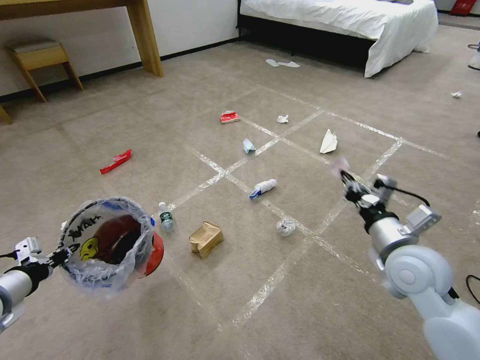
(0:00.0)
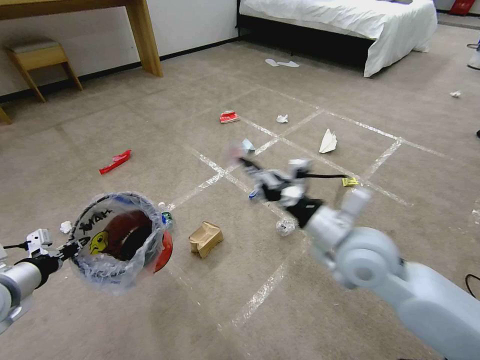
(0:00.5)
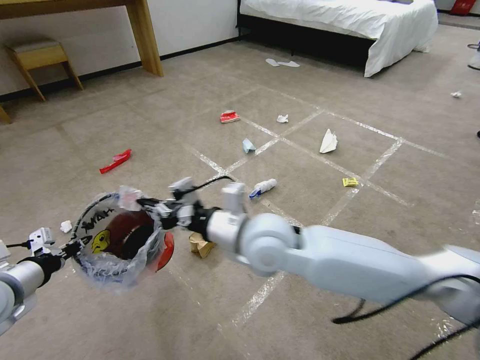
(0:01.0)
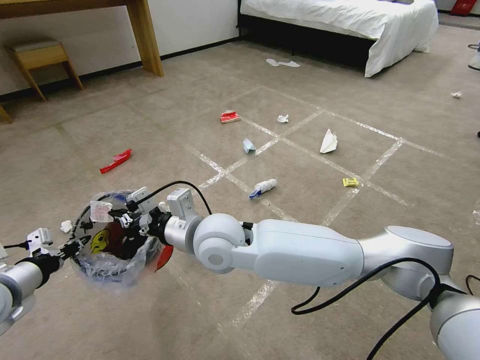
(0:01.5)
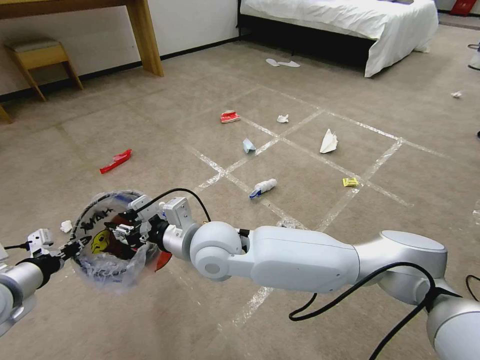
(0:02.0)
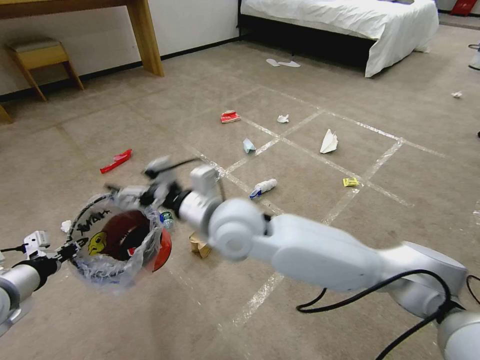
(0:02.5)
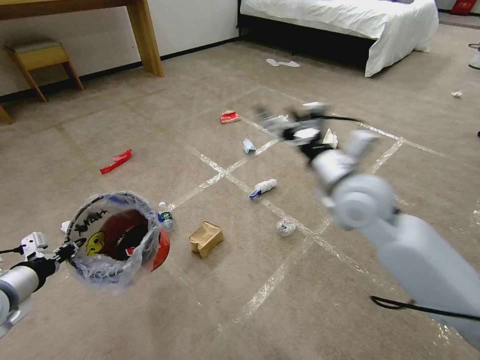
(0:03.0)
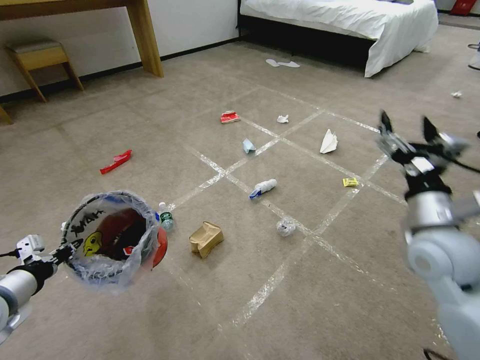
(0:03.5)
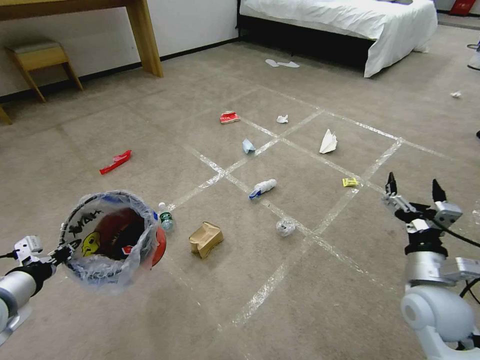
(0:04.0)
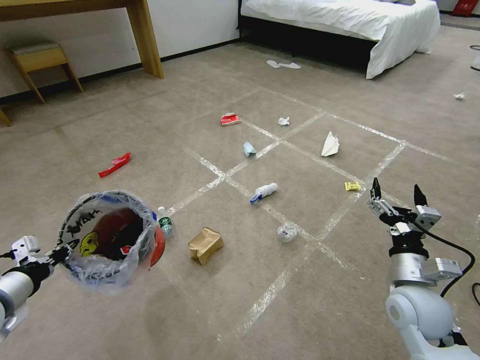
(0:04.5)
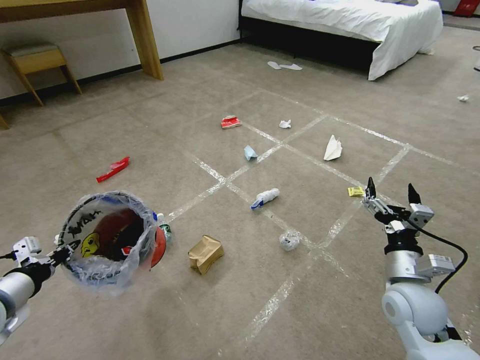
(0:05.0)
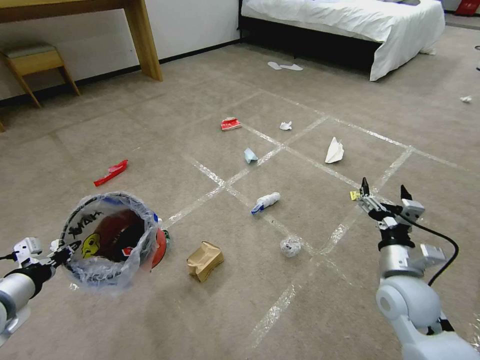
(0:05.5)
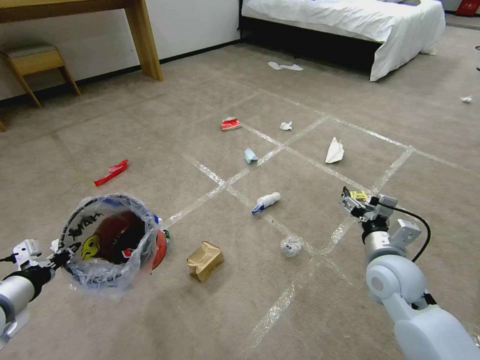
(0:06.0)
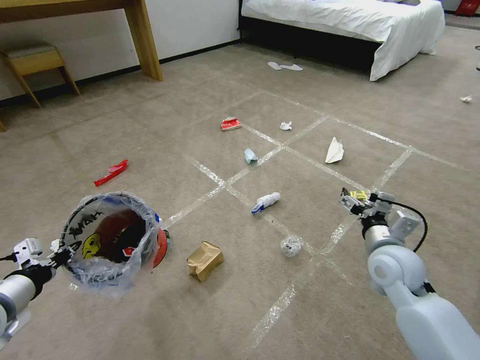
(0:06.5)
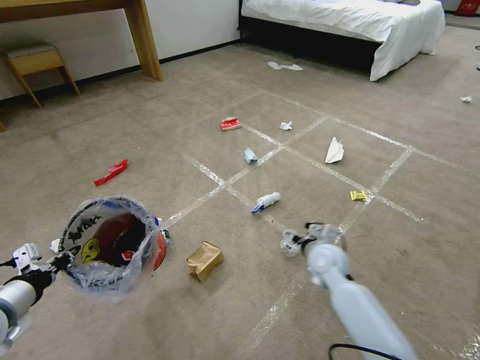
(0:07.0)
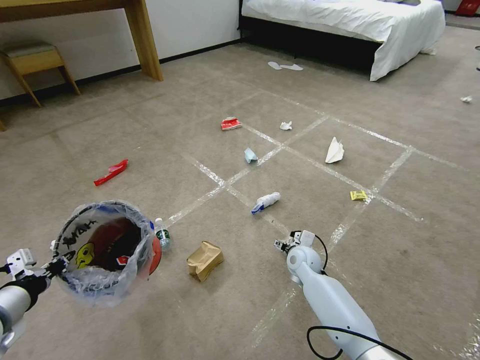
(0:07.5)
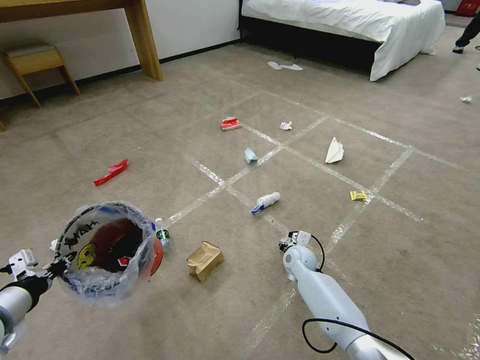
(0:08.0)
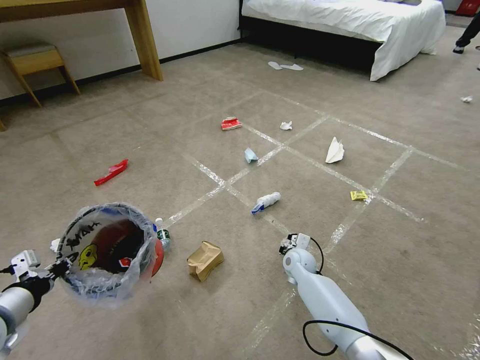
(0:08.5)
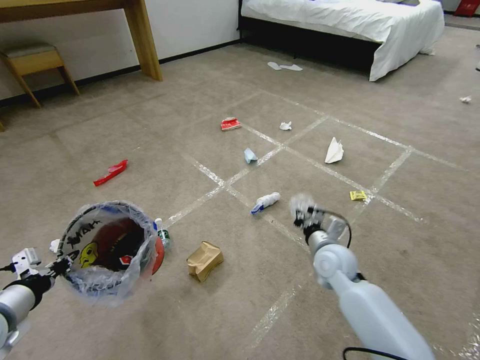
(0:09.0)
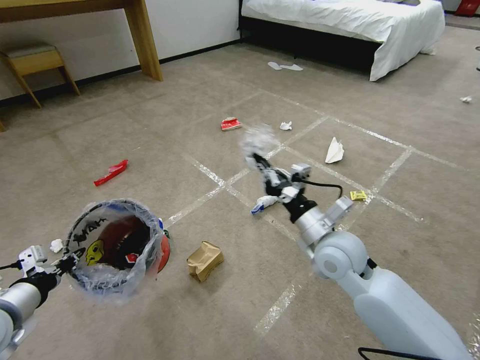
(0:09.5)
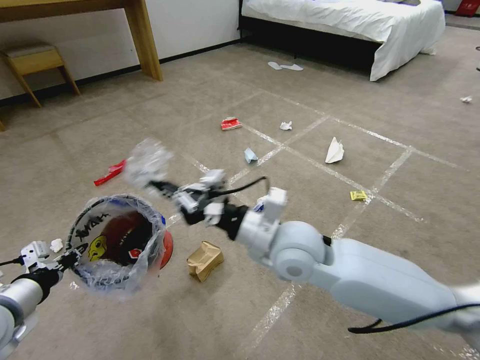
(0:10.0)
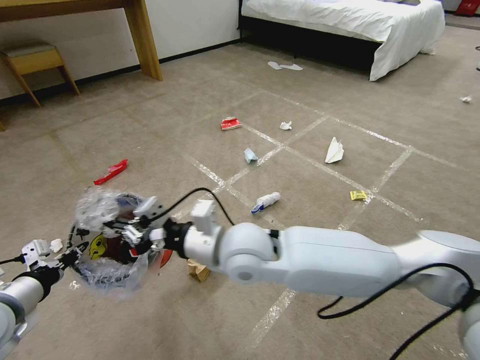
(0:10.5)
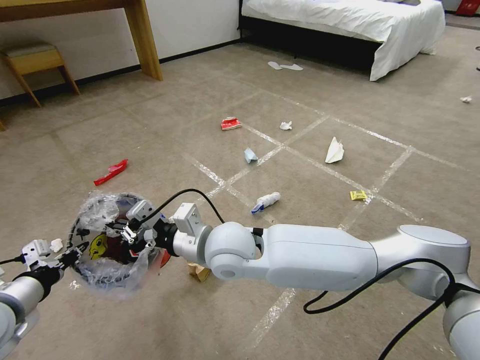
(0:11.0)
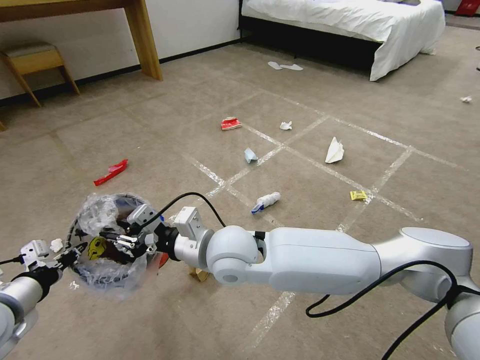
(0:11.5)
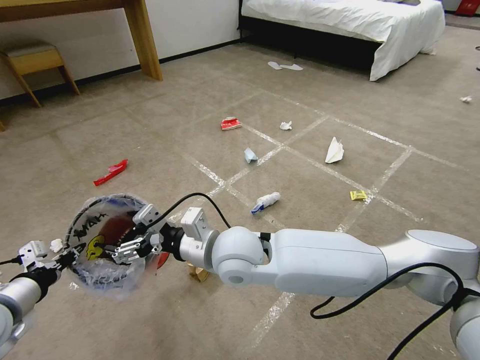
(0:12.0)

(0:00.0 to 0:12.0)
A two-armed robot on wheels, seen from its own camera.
Task of the whole recording: Pick up the trash bin and place the garbage on the floor into it.
0:00.0 - 0:02.0: The right gripper travels to the left by about 35 cm.
0:02.0 - 0:04.0: The right gripper is displaced to the right by about 40 cm, and opens its fingers.
0:04.0 - 0:06.0: The right gripper moves forward, about 5 cm.
0:06.0 - 0:08.0: The right gripper goes roughly 25 cm downward, forward and to the left.
0:08.0 - 0:10.0: The right gripper shifts about 30 cm upward and backward, and closes its fingers.
0:10.0 - 0:12.0: The right gripper is displaced to the left by approximately 10 cm, and opens its fingers.

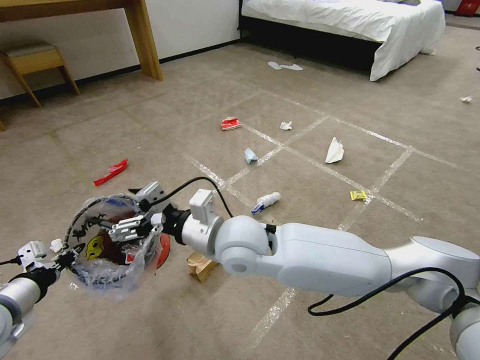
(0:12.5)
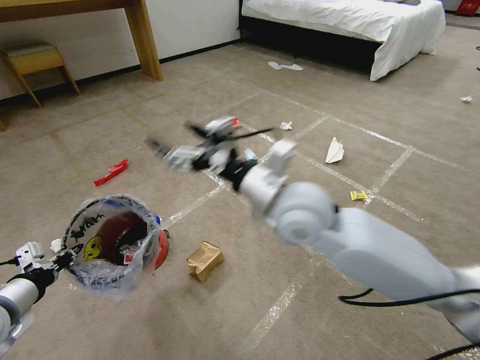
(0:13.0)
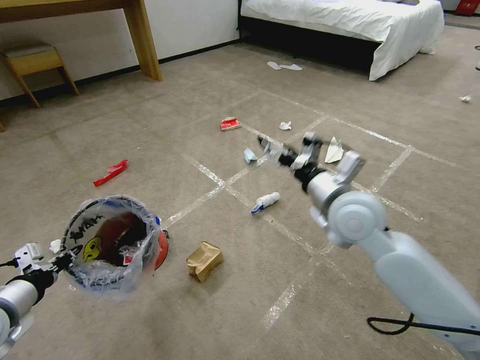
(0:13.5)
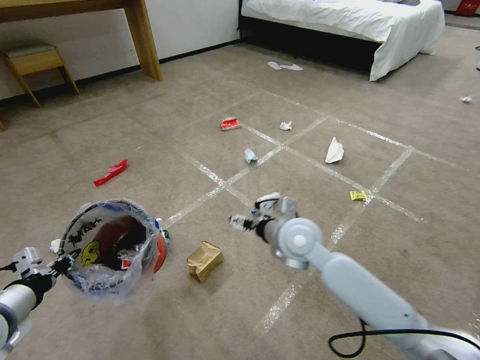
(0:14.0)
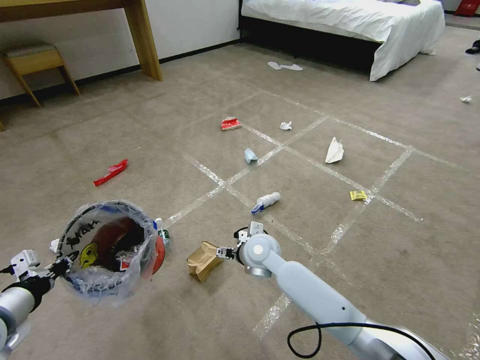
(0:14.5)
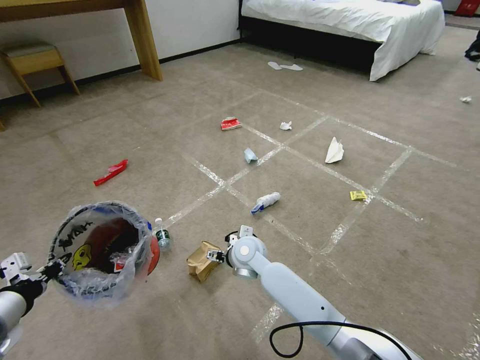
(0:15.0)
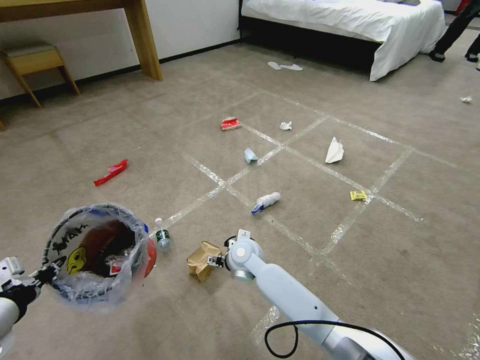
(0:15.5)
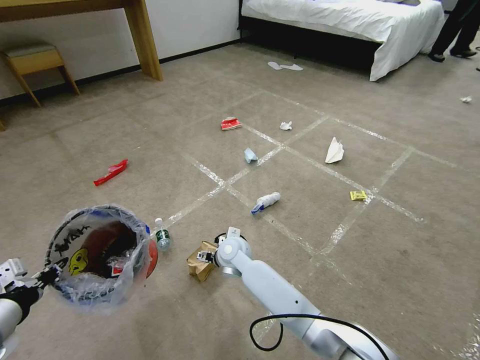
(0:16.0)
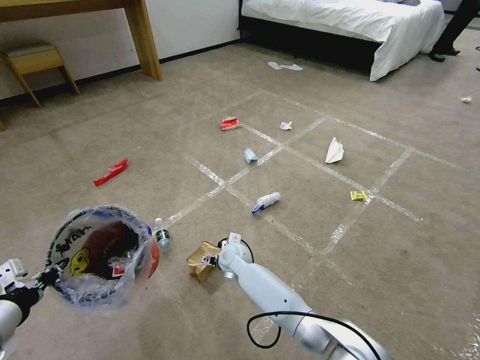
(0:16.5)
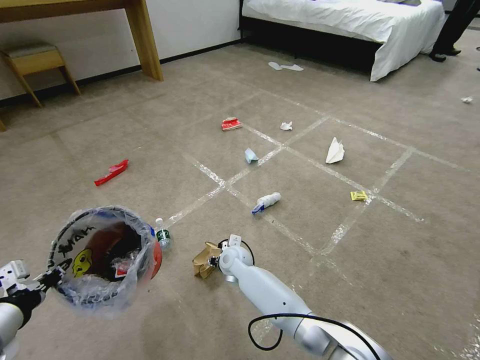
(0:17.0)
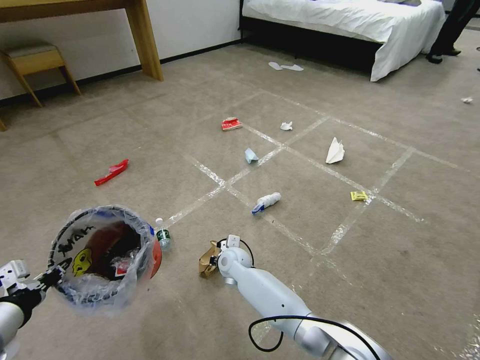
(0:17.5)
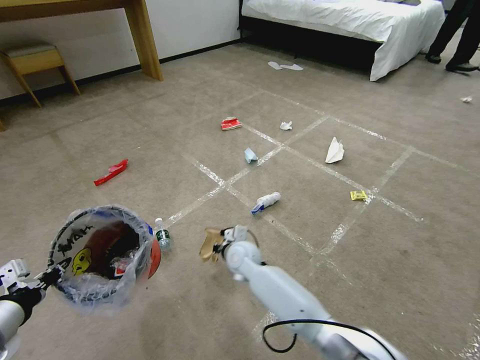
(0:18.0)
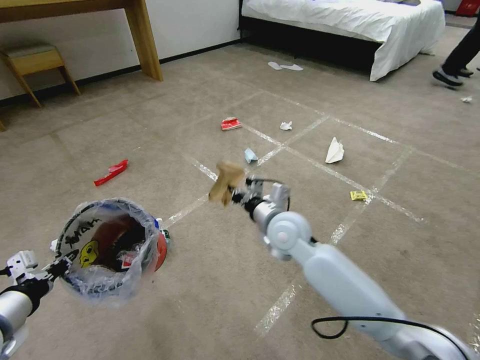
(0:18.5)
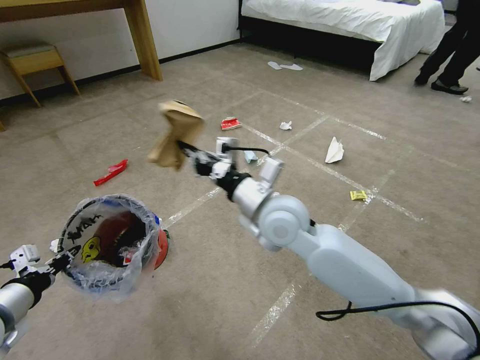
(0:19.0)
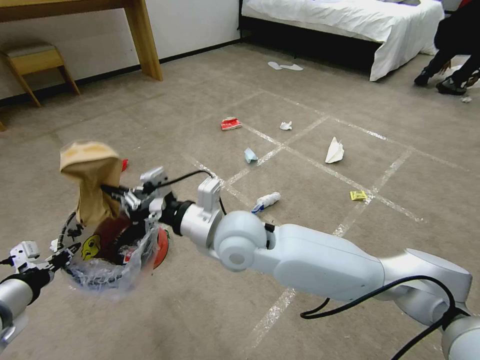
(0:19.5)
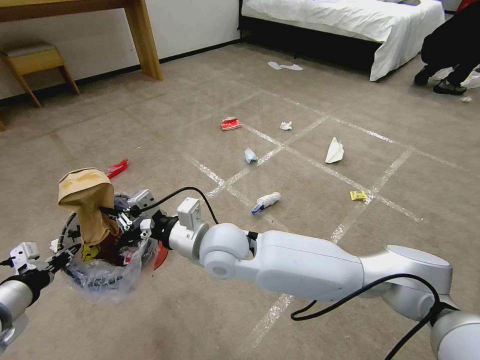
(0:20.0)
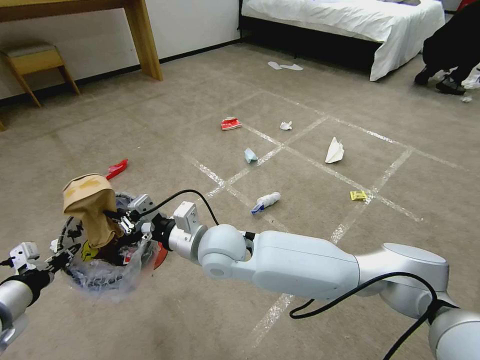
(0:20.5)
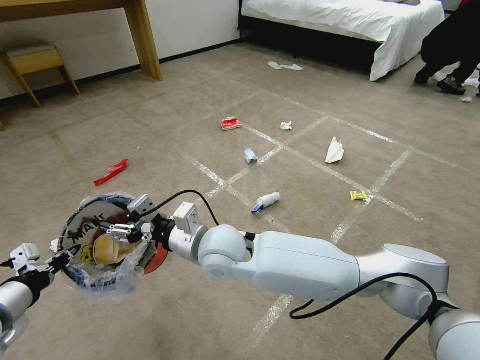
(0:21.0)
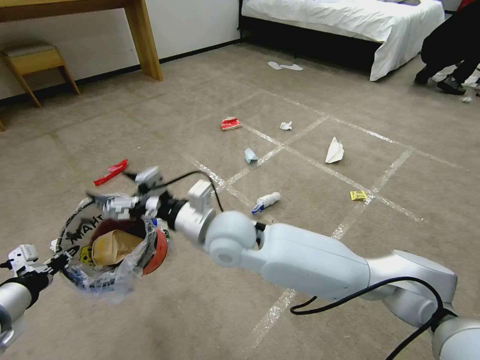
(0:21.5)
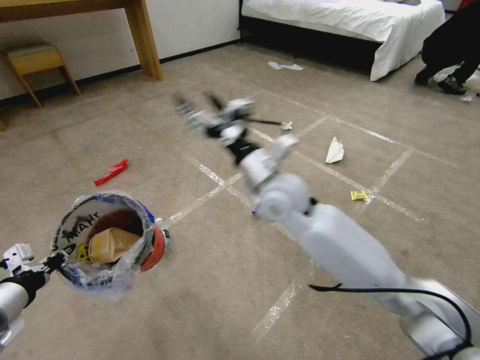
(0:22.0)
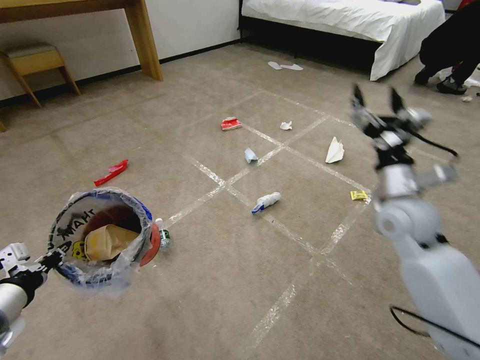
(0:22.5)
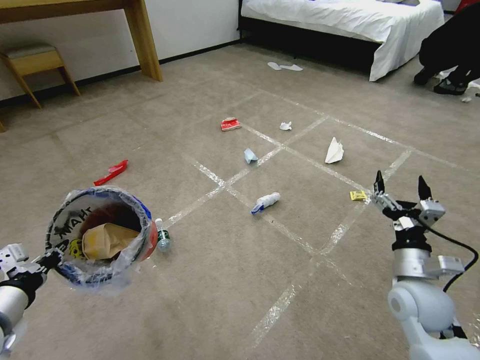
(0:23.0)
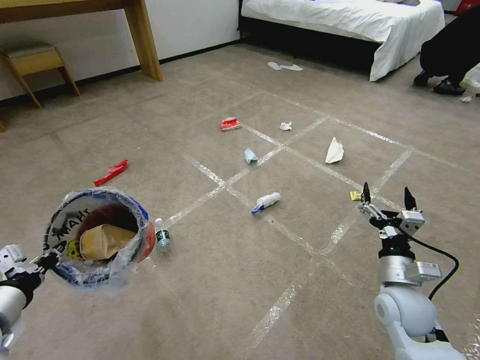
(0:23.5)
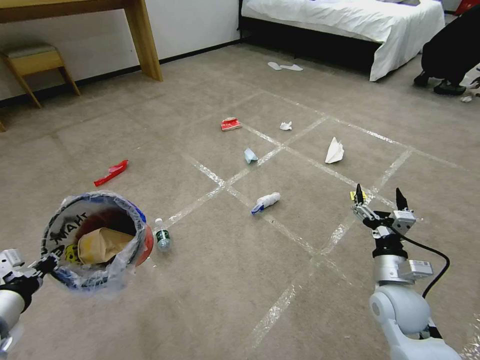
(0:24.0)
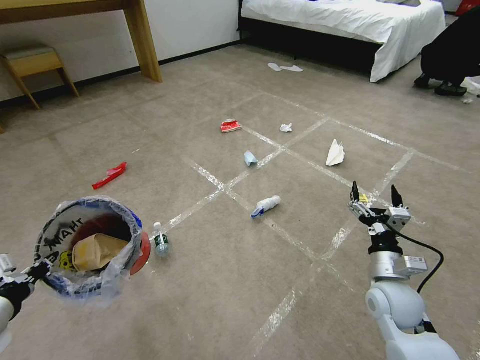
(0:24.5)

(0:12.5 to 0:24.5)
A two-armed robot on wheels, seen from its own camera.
Task of the whole recording: Pick up the trash bin and place the garbage on the floor into it.
0:12.5 - 0:14.5: The right gripper moves downward and forward, roughly 20 cm.
0:14.5 - 0:16.5: The right gripper travels downward and to the left by roughly 10 cm.
0:16.5 - 0:18.5: The right gripper heads upward and to the right, covering roughly 20 cm, and closes its fingers.
0:18.5 - 0:20.5: The right gripper heads to the left and backward, covering approximately 15 cm.
0:20.5 - 0:22.5: The right gripper moves to the right, some 35 cm, and opens up.
0:22.5 - 0:24.5: The right gripper is displaced downward and backward by approximately 15 cm.

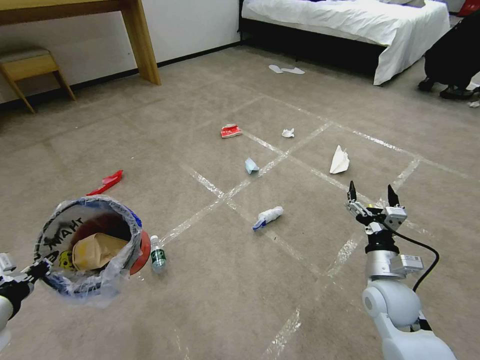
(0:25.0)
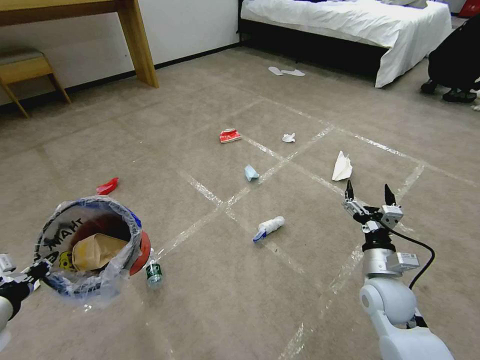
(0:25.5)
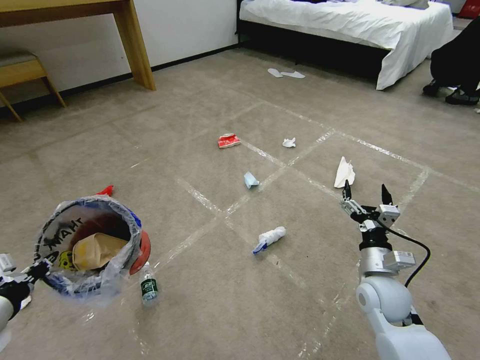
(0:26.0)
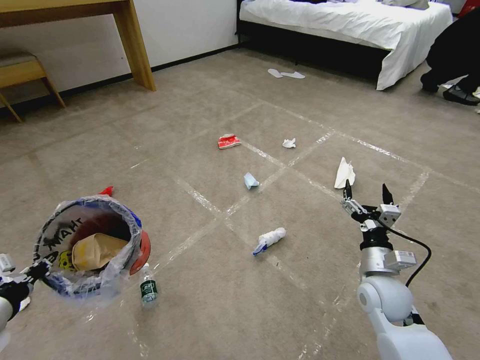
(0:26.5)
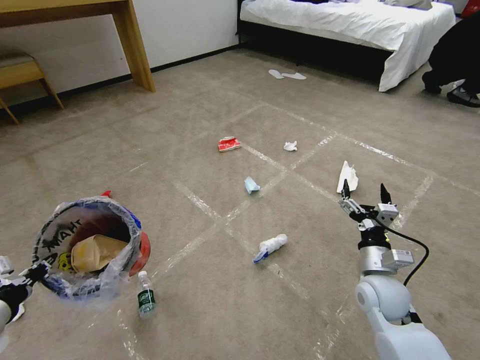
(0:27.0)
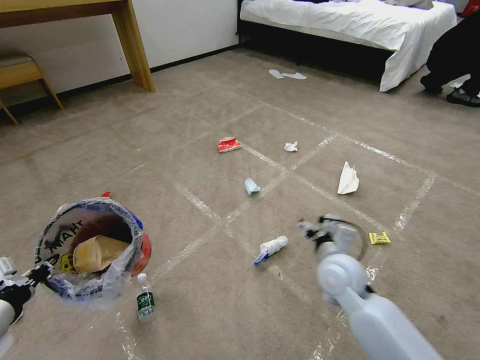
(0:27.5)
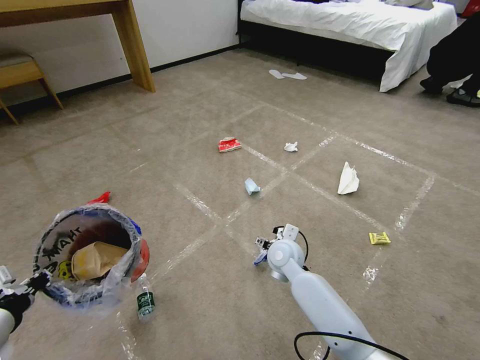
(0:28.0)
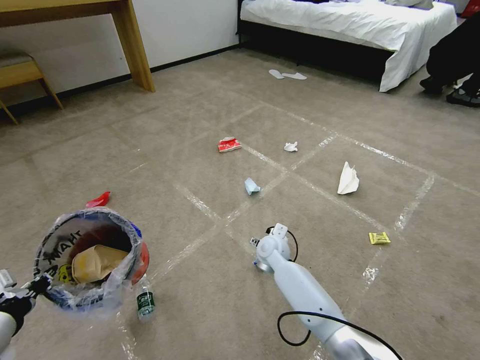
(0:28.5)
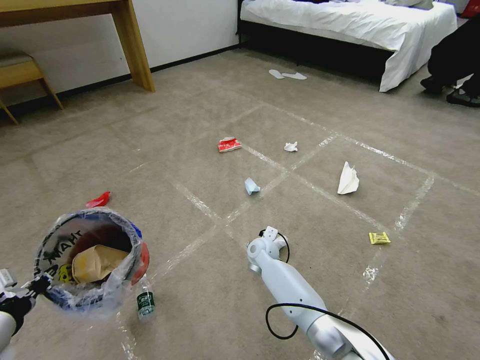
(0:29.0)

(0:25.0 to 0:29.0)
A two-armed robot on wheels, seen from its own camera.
Task of the whole recording: Pick up the trash bin and place the garbage on the floor into it.
0:25.0 - 0:27.0: The grippers make only small movements.
0:27.0 - 0:29.0: The right gripper heads to the left, forward and downward, covering roughly 30 cm.
